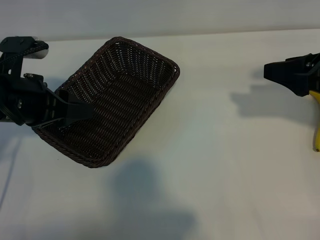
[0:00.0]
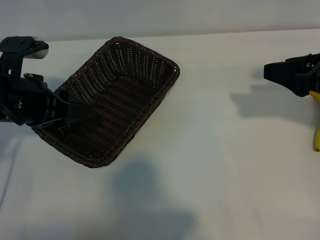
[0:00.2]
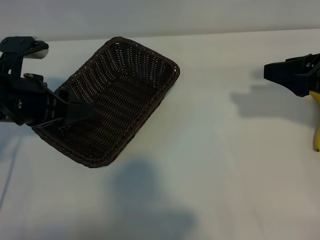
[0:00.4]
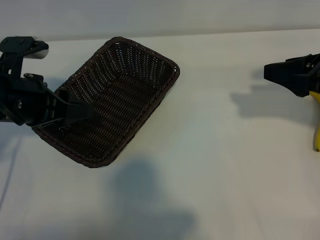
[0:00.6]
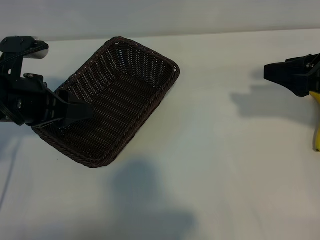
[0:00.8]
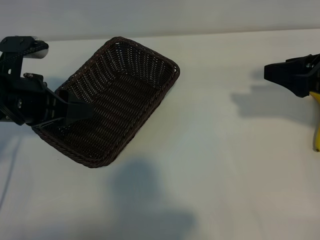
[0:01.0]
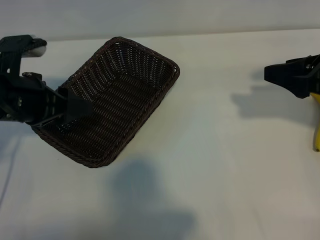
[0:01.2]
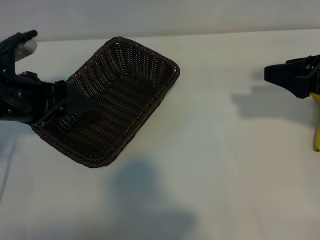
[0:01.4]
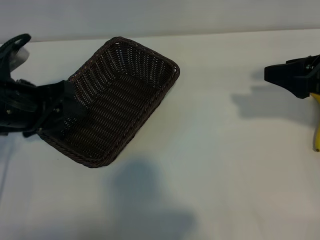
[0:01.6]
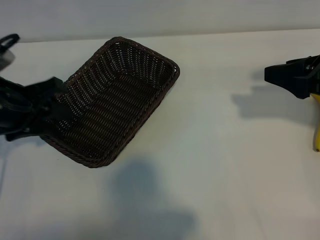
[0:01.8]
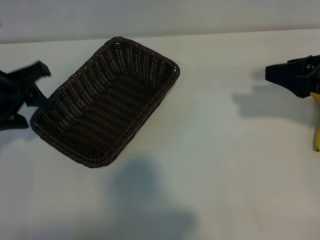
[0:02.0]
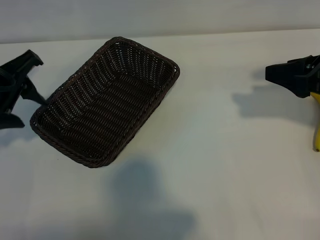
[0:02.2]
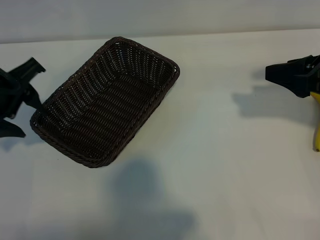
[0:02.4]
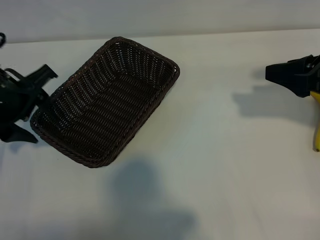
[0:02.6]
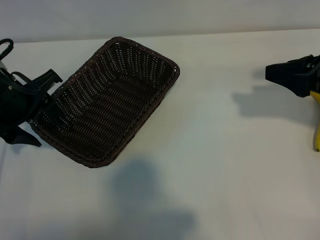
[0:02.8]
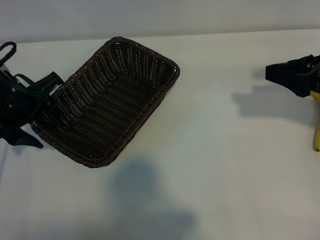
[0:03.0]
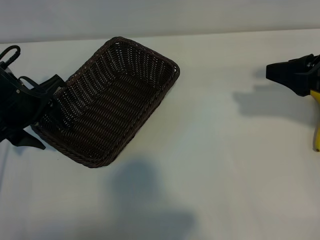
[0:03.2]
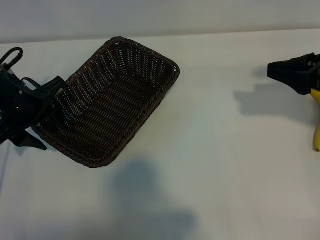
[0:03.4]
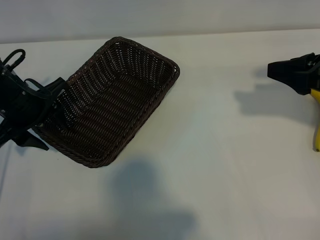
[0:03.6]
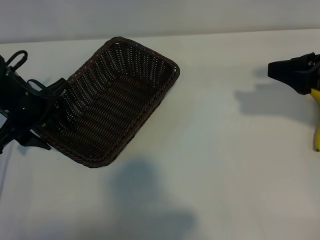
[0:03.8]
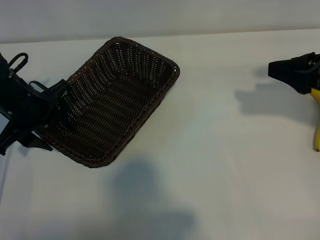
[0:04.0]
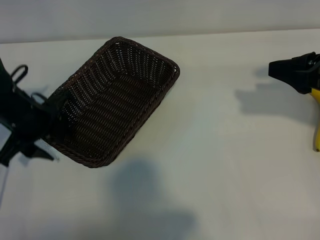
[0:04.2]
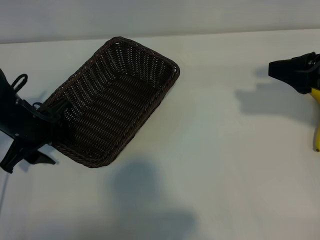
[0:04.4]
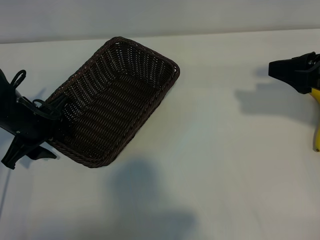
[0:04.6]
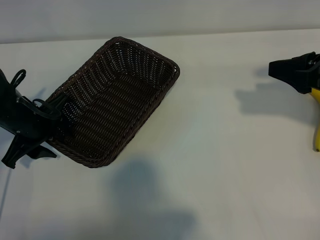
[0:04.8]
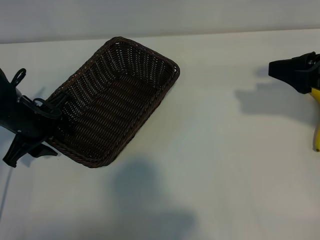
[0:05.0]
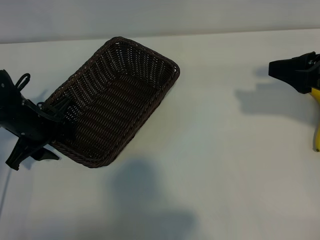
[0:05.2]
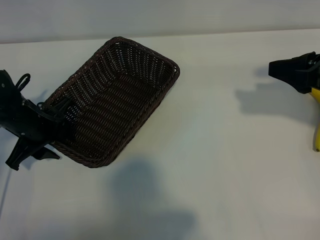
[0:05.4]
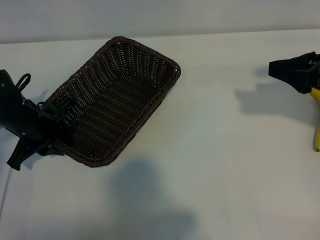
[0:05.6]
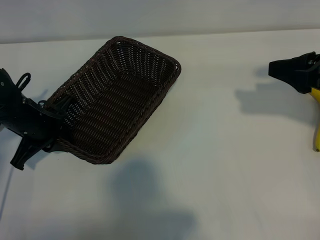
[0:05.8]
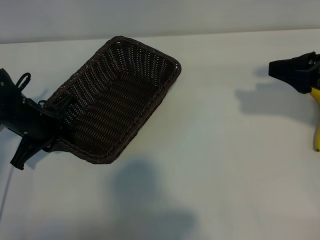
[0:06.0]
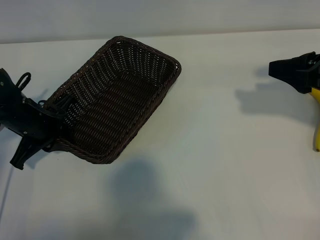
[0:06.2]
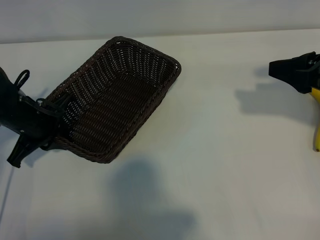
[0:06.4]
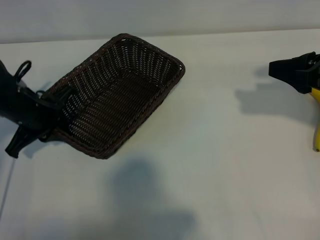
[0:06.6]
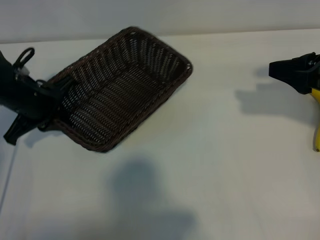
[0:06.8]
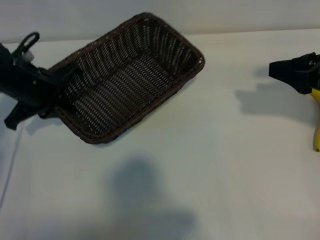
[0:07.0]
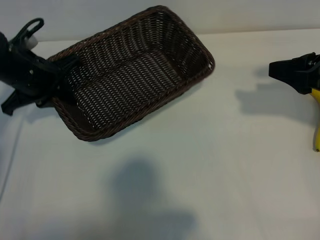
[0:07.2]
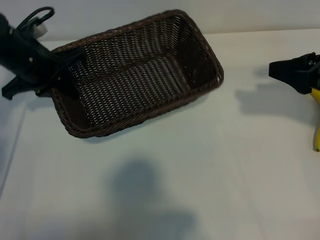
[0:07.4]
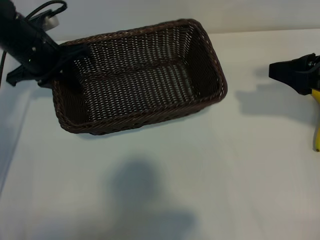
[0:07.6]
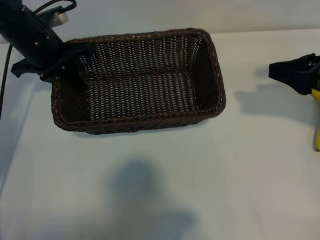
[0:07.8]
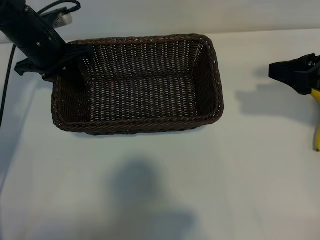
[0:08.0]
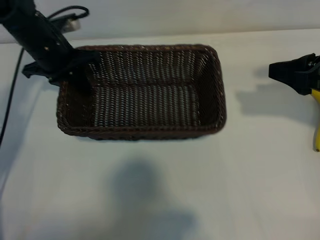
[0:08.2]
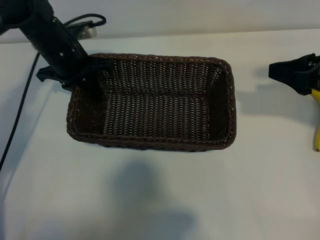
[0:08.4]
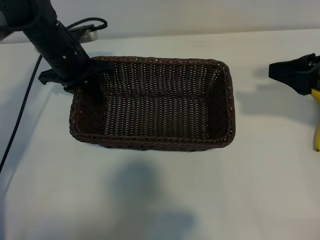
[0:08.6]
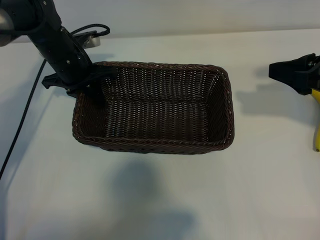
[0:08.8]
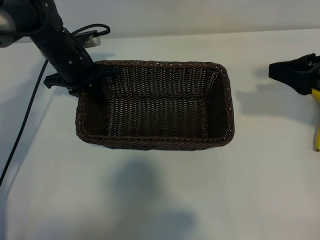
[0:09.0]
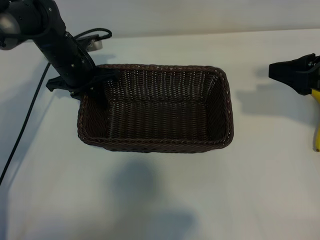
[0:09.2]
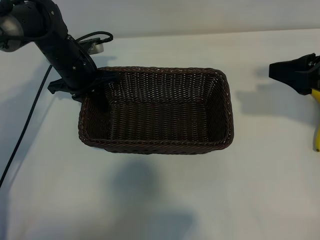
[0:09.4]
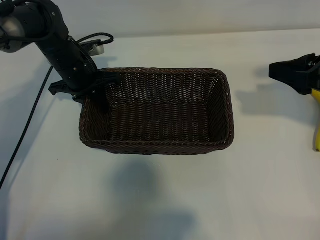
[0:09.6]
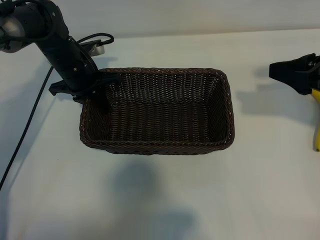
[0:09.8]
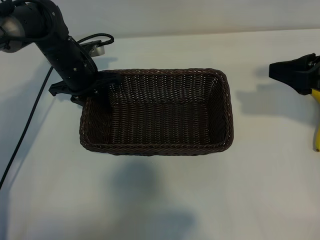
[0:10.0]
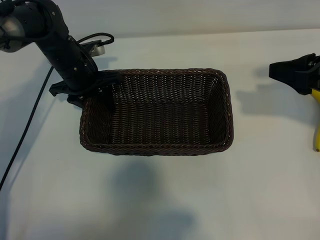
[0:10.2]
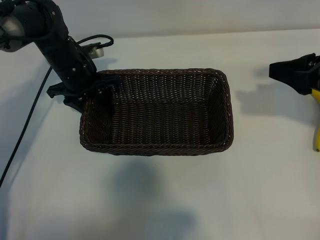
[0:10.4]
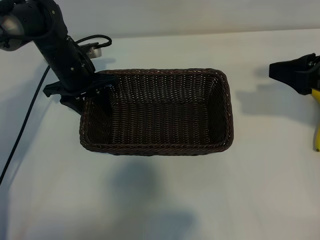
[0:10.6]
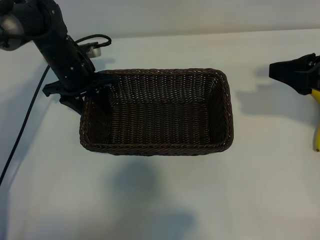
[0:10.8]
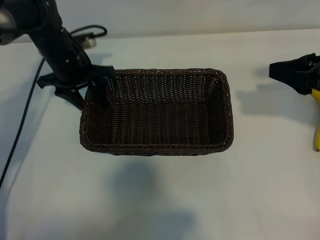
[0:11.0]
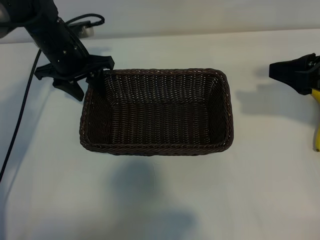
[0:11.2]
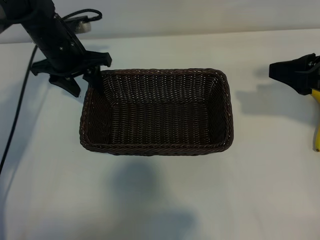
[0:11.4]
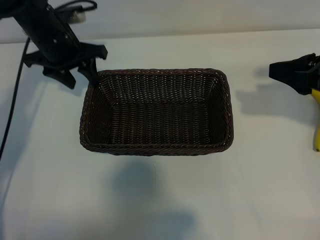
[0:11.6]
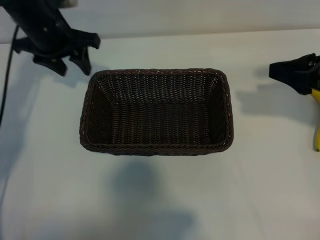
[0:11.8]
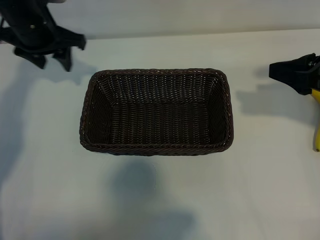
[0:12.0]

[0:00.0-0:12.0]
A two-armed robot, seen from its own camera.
Task of the whole recording: pick up the banana and put it into the basket.
Step, 0:01.0 to 0:05.8: Grasp the basket with the left gripper.
Step, 0:06.0 to 0:11.0: Place the basket in the center of the table with the left gripper.

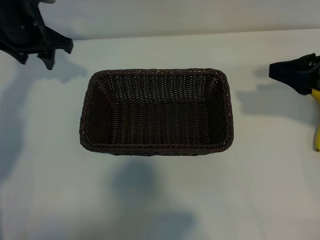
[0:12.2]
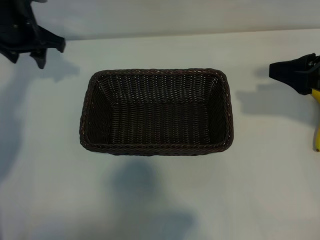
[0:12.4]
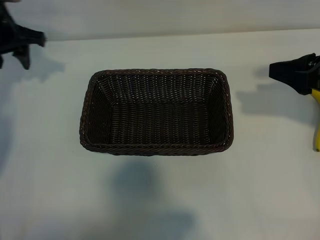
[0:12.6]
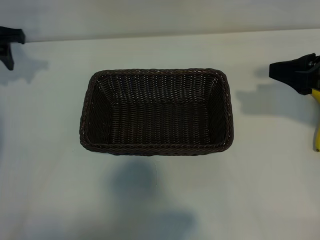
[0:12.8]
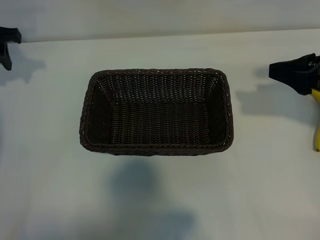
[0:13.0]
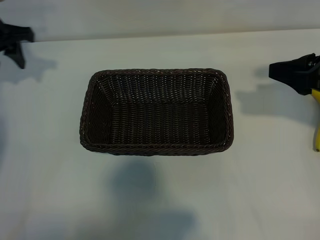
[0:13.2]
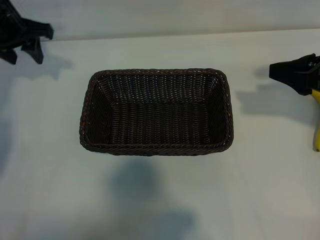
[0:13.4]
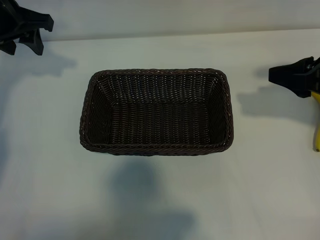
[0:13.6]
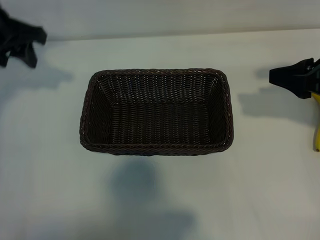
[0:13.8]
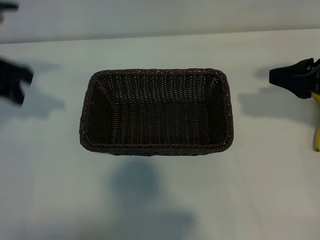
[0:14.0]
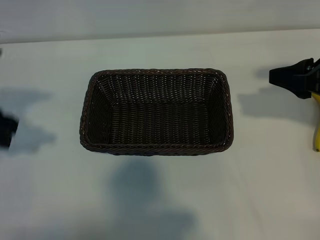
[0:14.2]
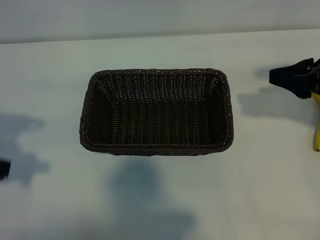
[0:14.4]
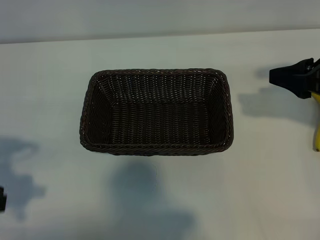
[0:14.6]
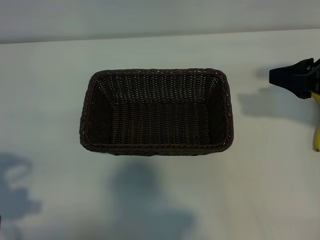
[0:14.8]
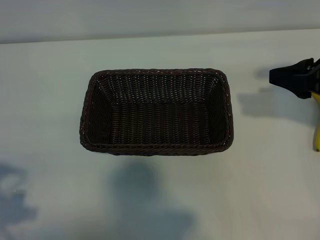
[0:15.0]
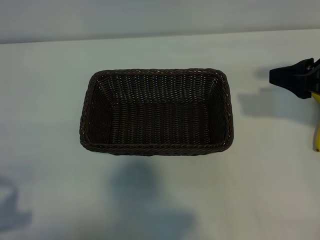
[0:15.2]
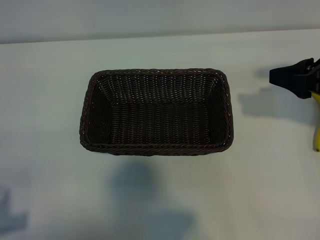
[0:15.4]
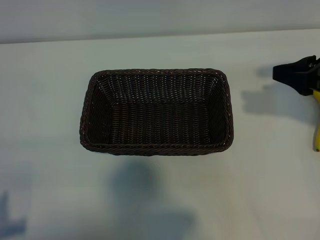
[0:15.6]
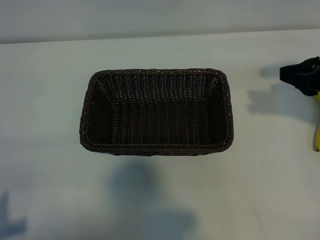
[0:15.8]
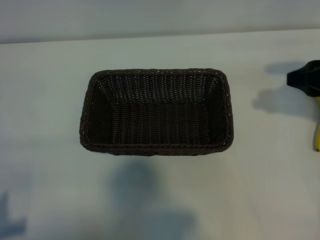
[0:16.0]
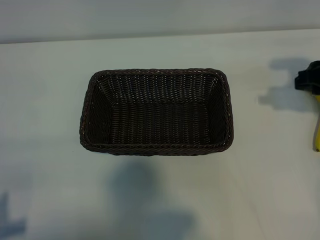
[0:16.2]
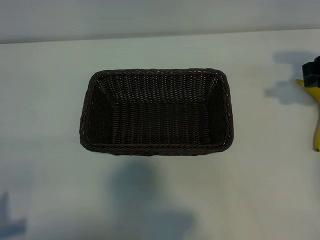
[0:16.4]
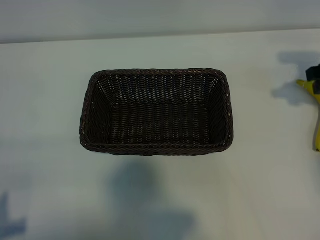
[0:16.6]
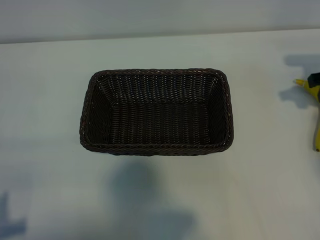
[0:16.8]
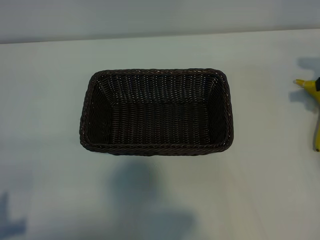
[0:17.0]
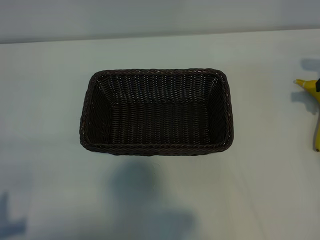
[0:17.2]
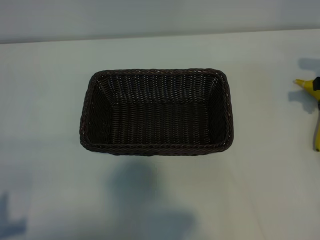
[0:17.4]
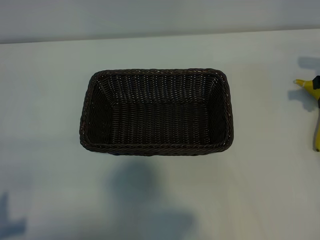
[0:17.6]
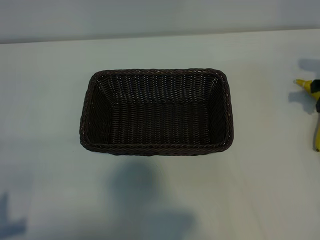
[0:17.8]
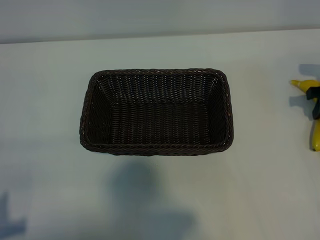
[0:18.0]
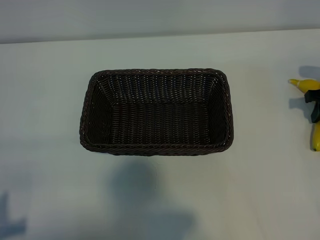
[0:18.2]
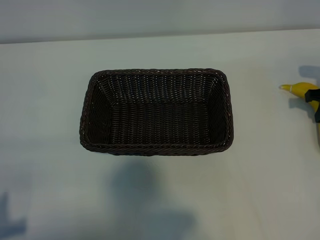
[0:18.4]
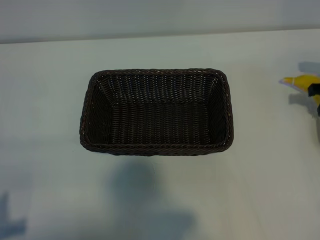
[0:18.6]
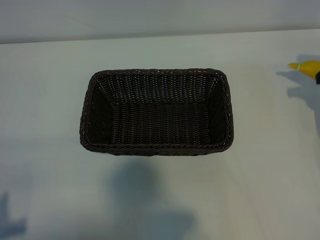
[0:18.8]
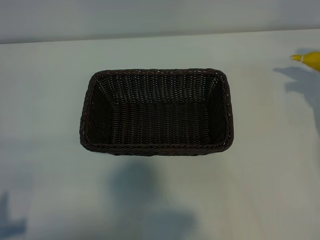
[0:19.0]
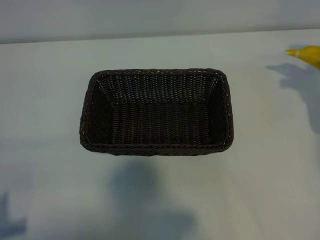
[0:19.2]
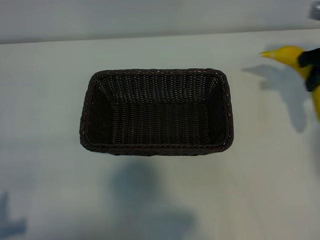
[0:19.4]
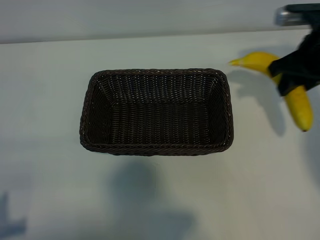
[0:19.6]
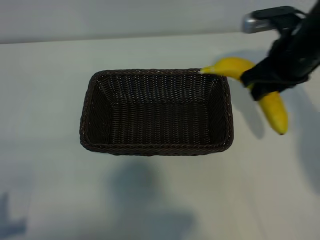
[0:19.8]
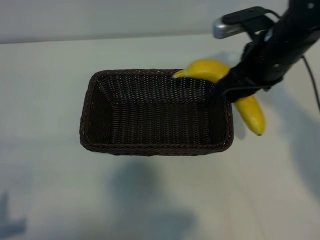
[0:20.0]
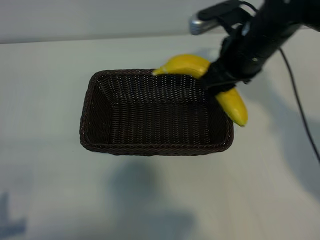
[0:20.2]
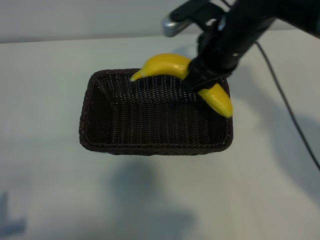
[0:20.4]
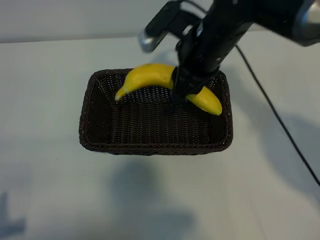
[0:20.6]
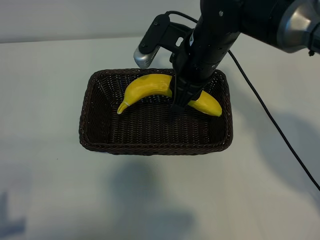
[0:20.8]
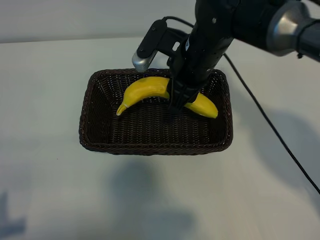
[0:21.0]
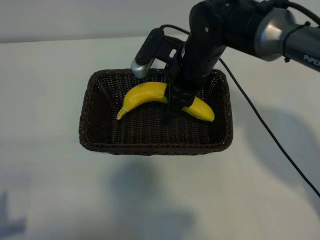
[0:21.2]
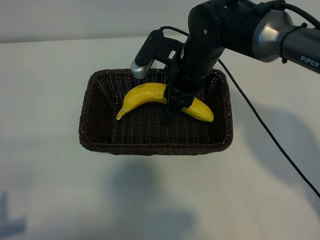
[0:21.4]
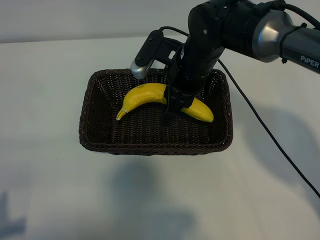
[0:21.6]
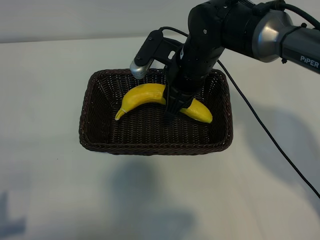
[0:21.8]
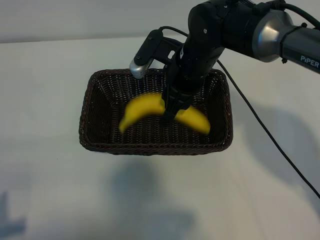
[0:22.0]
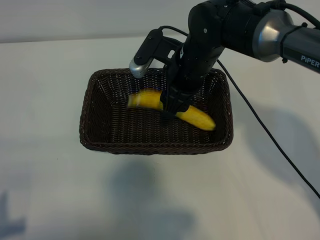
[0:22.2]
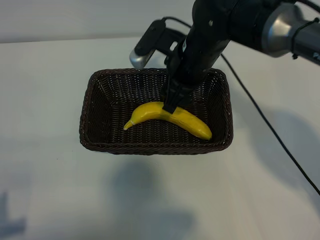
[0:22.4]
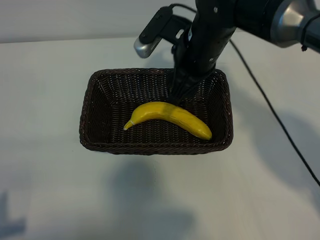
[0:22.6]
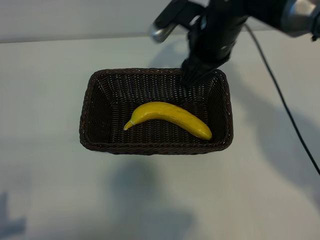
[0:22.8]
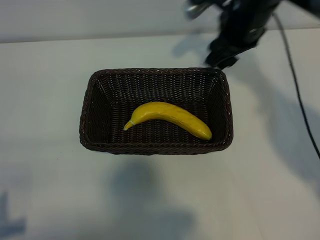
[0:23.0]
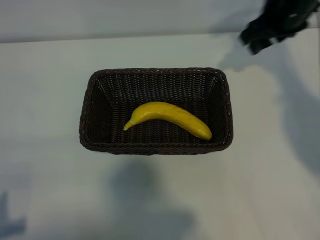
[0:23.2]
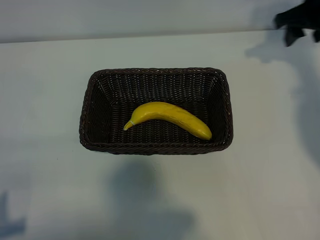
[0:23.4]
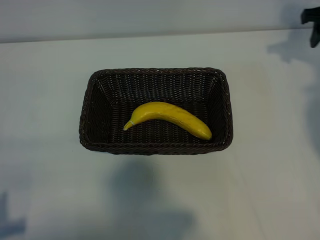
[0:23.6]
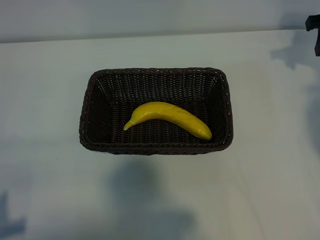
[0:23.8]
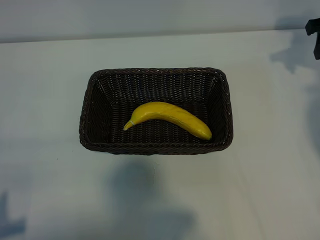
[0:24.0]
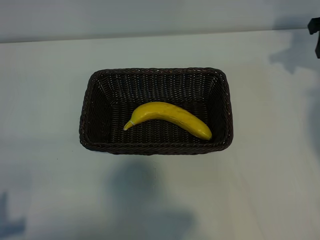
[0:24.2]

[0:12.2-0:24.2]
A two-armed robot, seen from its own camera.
Task of the whole recording: pick up the banana and put it into the basket.
Step, 0:12.2 to 0:18.4: Grasp the banana with right gripper.
Step, 0:18.6 to 0:22.6: Place the banana in the basket with right gripper.
